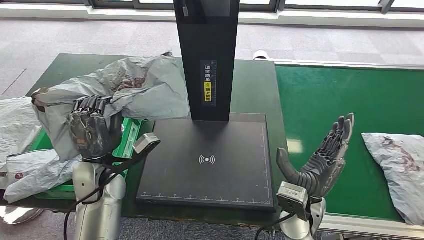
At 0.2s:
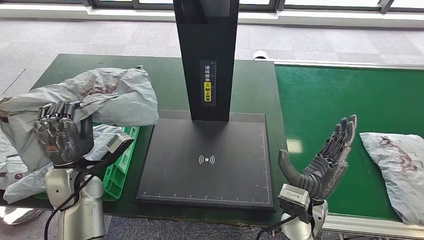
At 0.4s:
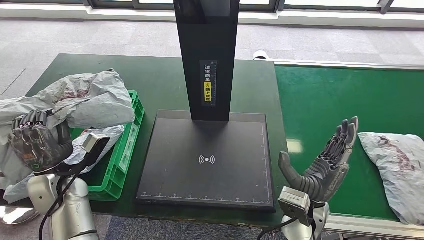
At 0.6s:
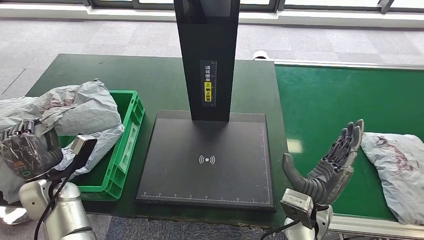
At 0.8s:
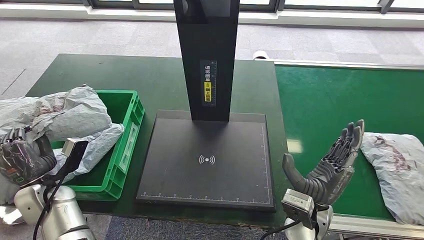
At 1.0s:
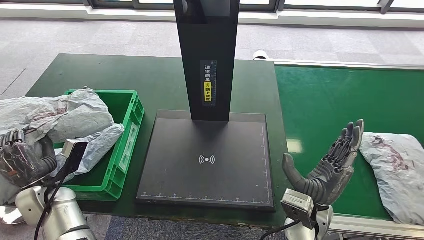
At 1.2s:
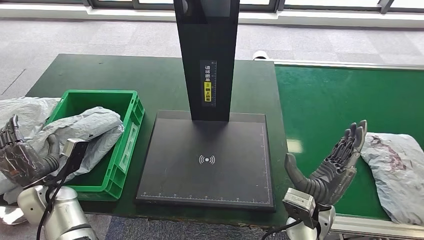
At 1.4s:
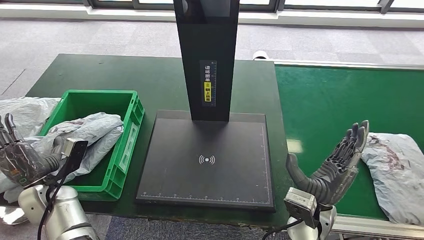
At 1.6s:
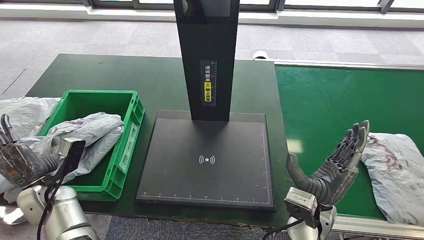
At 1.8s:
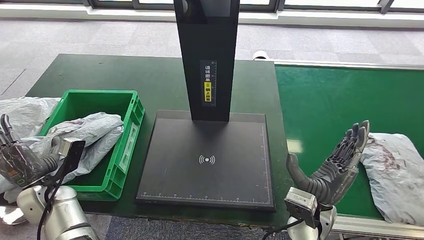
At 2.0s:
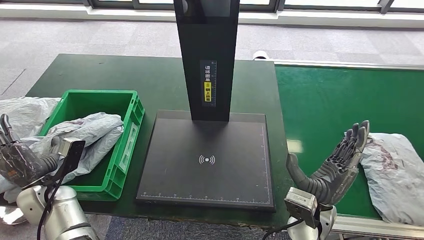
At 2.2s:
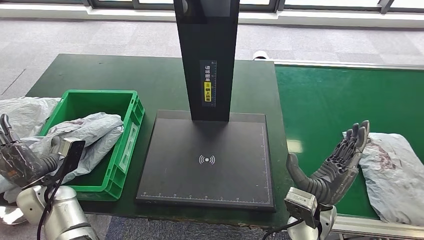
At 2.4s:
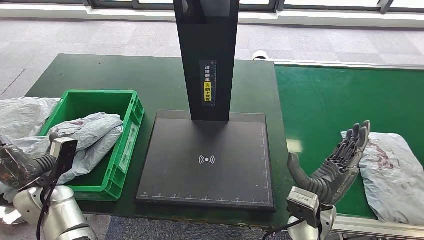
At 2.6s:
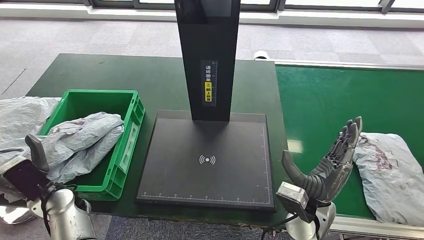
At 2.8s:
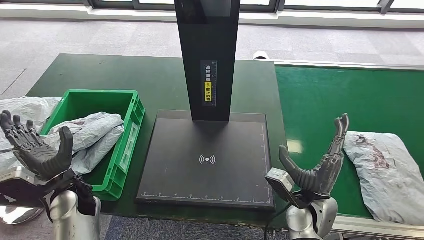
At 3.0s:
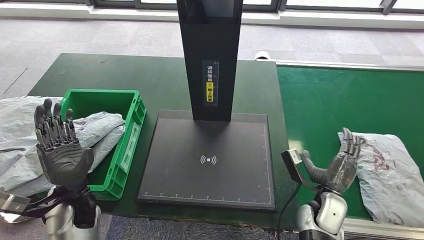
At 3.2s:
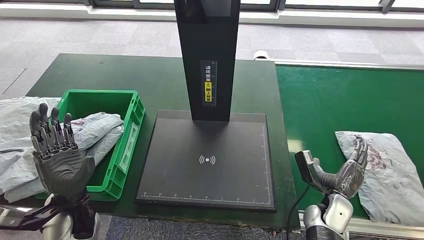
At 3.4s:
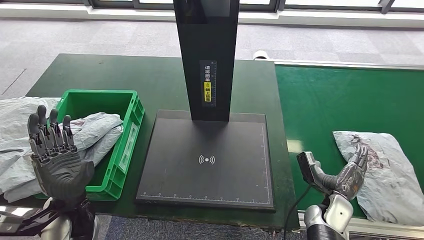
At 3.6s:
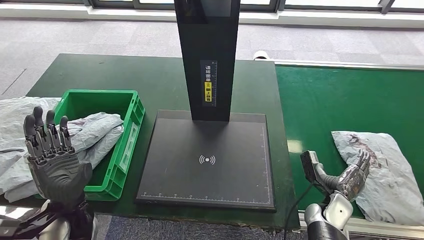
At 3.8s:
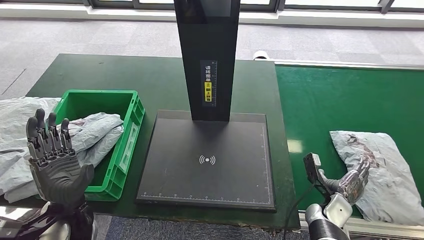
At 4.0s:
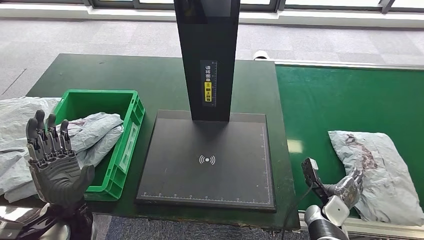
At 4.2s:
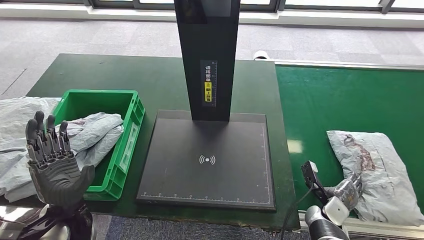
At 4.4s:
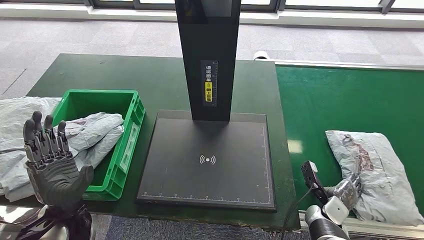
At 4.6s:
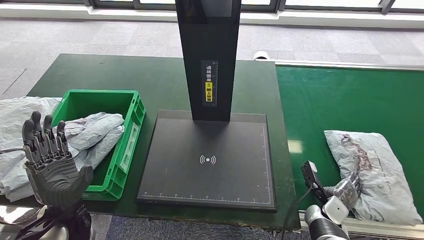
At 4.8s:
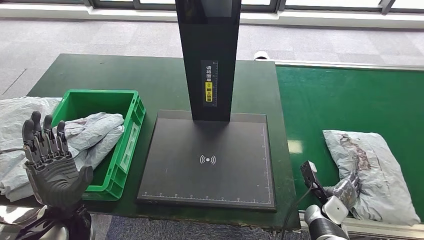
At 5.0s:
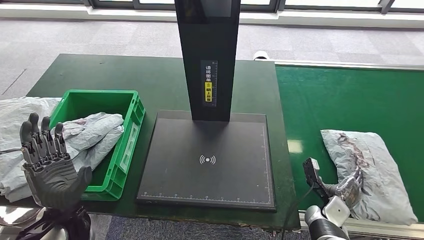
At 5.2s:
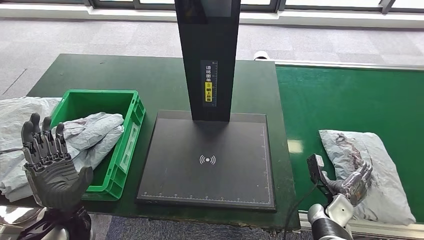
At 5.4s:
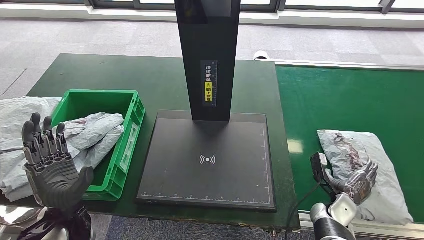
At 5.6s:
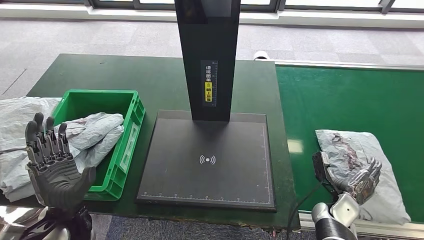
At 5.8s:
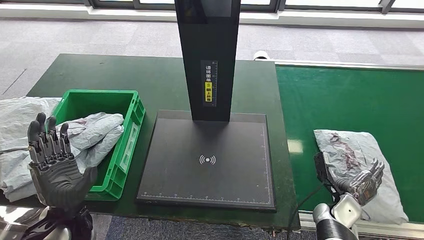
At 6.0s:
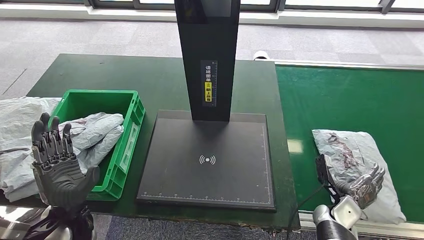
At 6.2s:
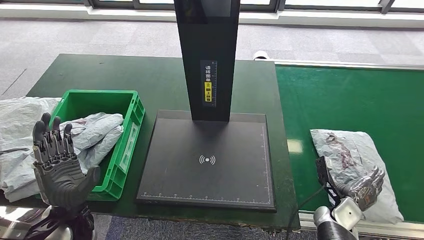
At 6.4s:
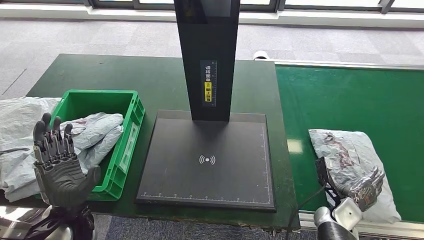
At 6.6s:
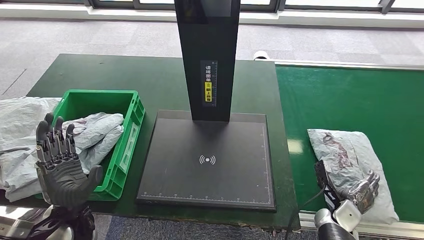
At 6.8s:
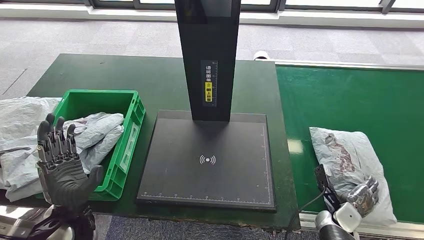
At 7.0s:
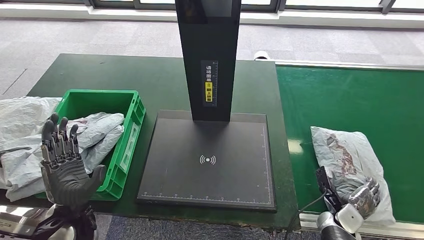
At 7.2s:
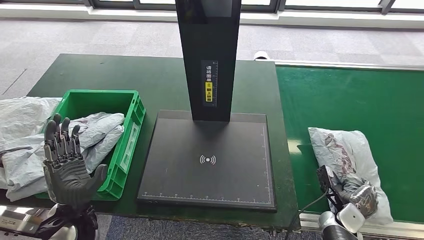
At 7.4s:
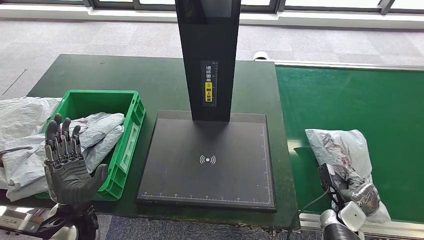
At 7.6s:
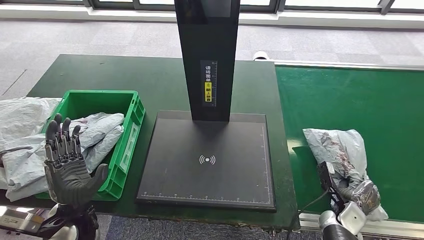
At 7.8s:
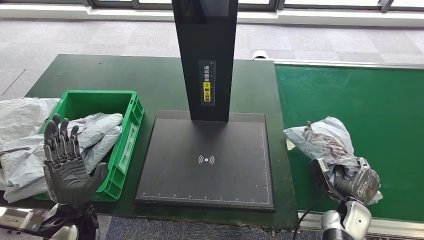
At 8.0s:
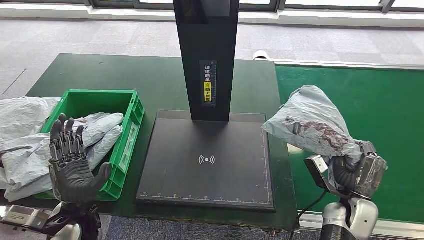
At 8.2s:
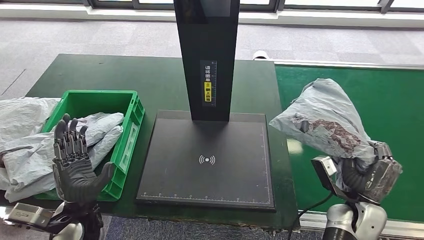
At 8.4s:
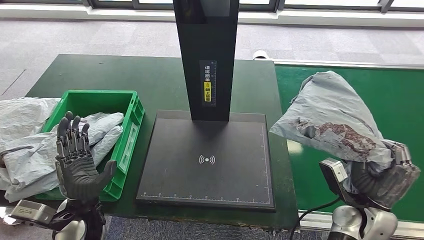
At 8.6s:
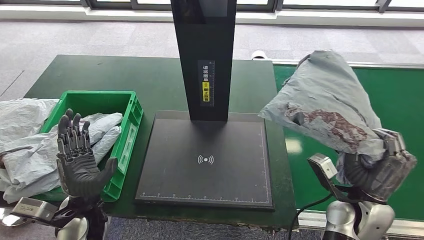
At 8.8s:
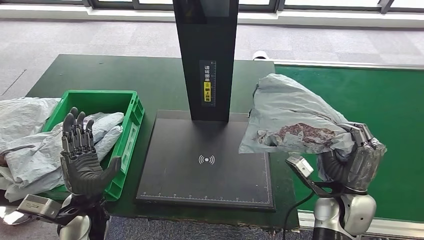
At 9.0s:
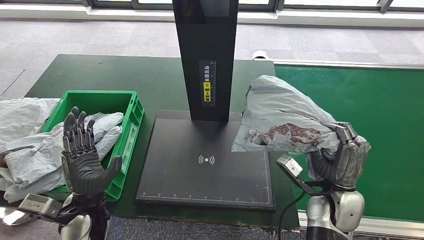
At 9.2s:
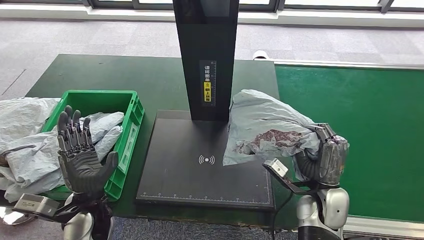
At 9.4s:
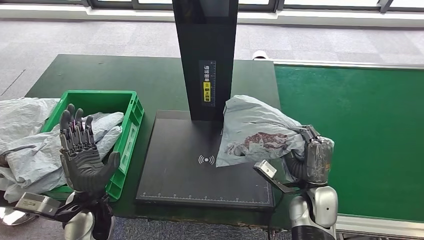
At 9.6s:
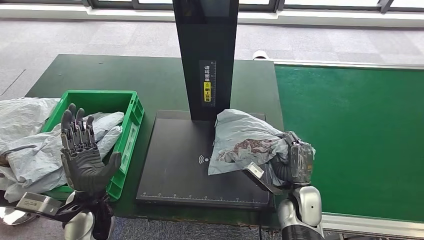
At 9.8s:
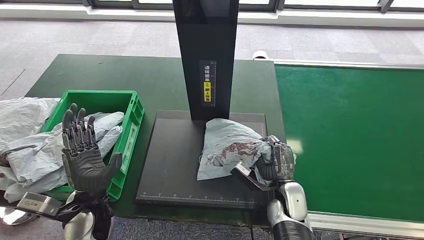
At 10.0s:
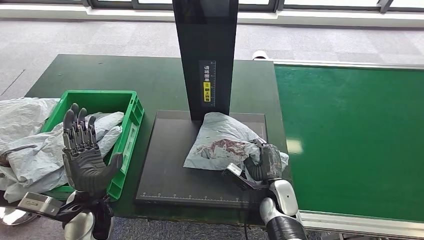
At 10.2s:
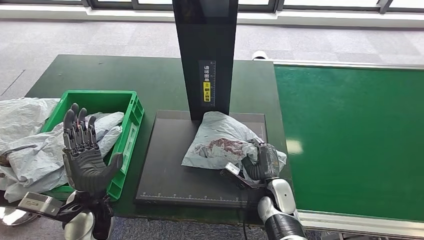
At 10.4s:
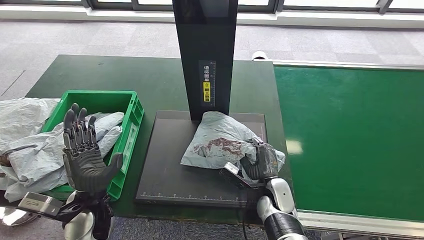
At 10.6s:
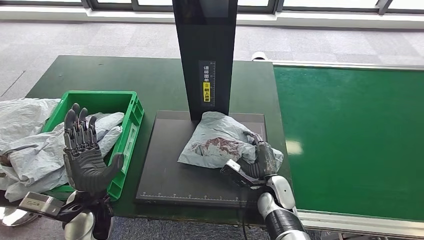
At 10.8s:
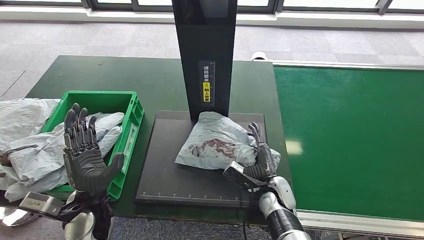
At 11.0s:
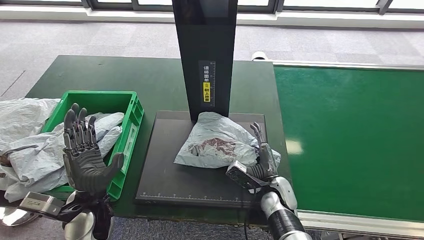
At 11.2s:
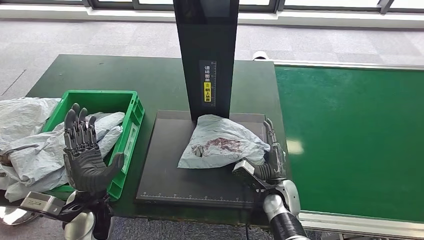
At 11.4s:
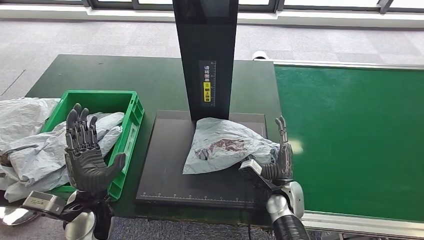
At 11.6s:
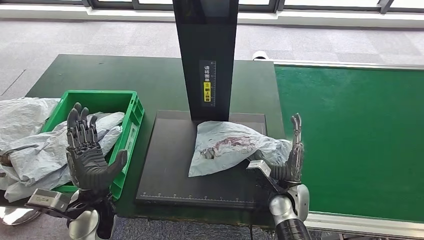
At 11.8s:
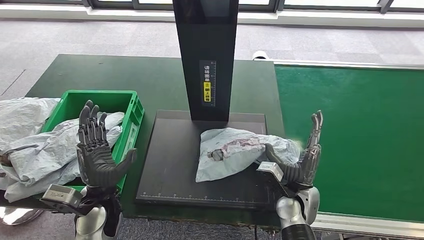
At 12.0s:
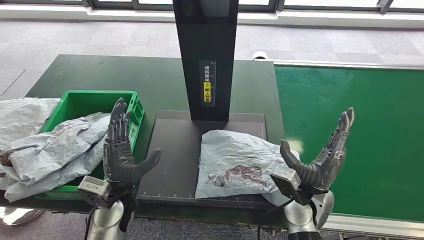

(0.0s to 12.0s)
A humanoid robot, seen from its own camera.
Step, 0.2s - 2.6s: Place the parcel into the delivery box.
Step, 5.4s - 8.6s: Pick up the parcel from the conveyor belt.
3.0s - 4.4s: The right hand is displaced downward and to the right by some 10 cm.
6.0s - 7.6s: The hands move only a little.
10.4s - 12.0s: The right hand goes approximately 10 cm upward and to the right.

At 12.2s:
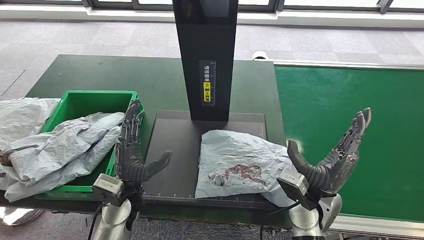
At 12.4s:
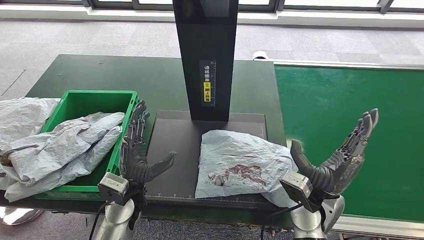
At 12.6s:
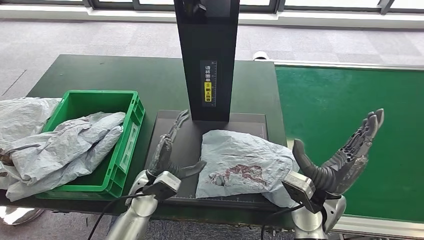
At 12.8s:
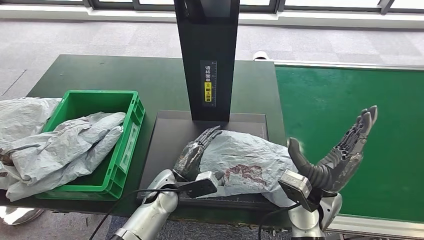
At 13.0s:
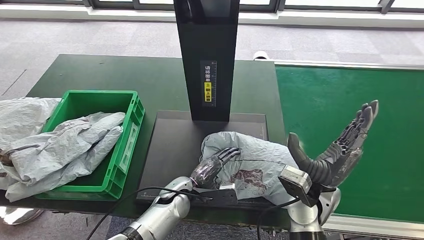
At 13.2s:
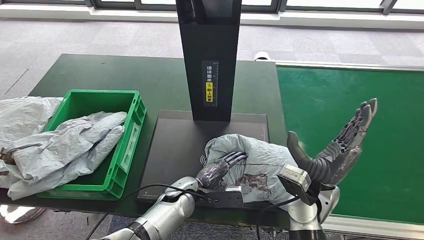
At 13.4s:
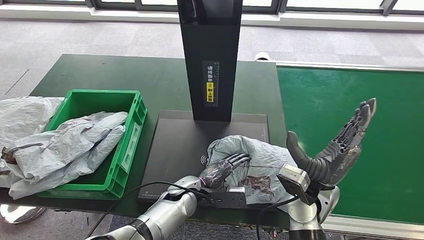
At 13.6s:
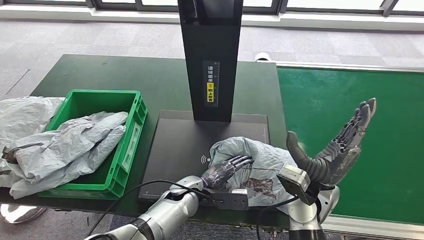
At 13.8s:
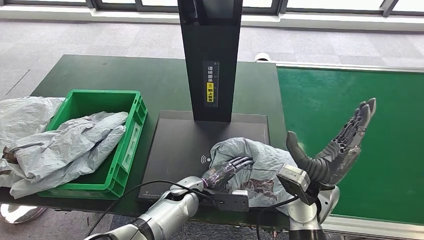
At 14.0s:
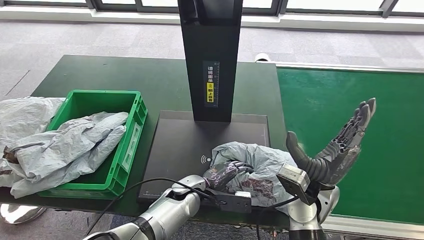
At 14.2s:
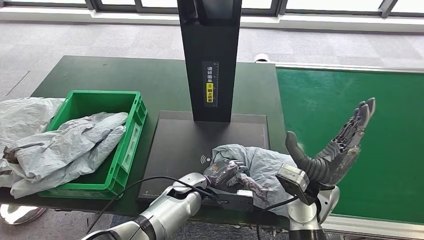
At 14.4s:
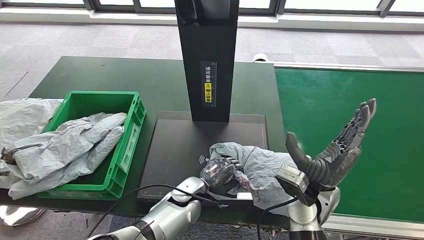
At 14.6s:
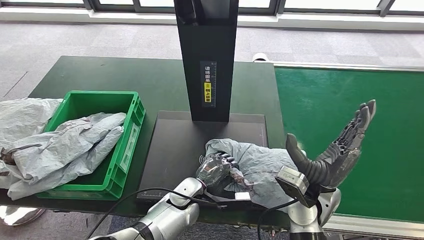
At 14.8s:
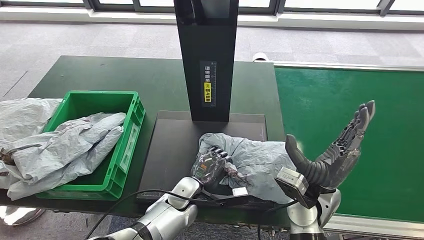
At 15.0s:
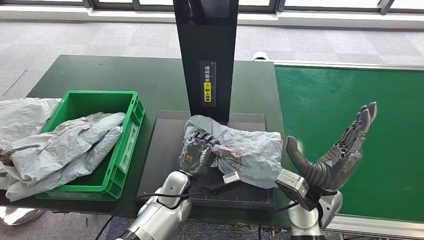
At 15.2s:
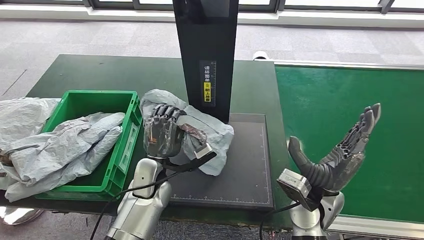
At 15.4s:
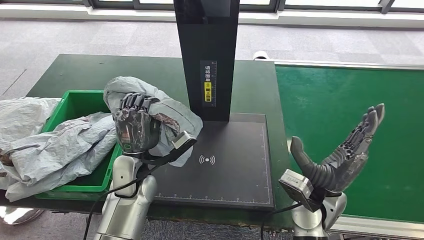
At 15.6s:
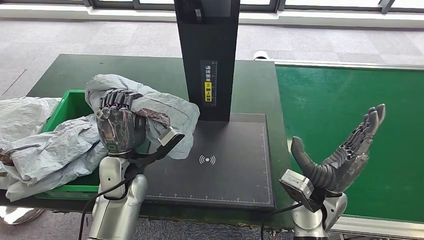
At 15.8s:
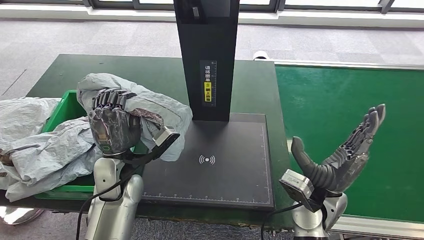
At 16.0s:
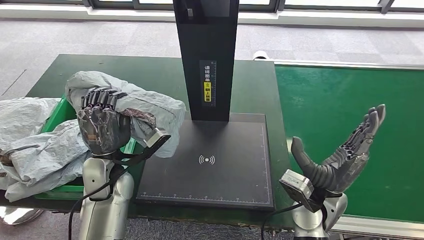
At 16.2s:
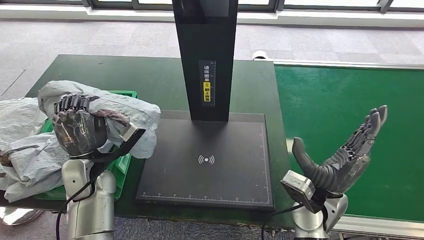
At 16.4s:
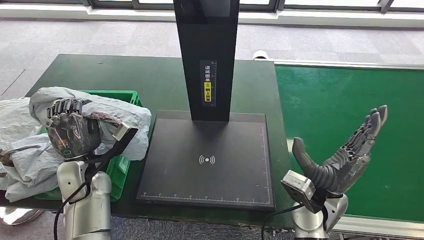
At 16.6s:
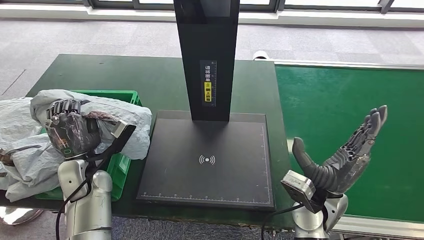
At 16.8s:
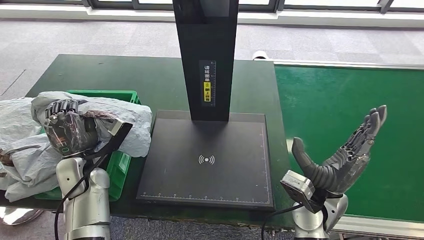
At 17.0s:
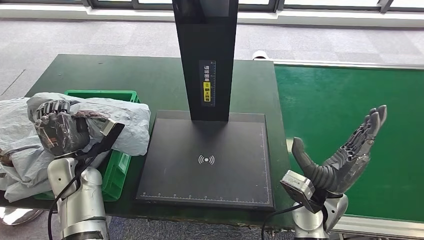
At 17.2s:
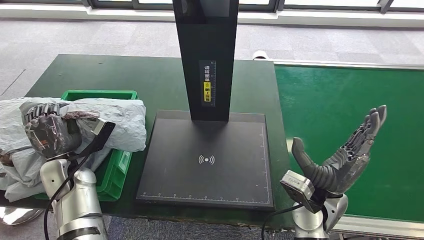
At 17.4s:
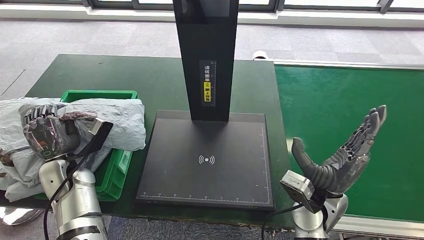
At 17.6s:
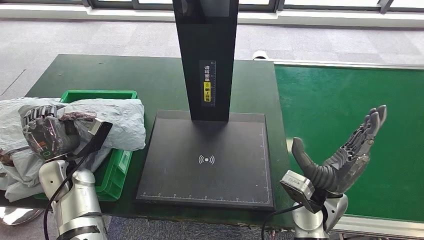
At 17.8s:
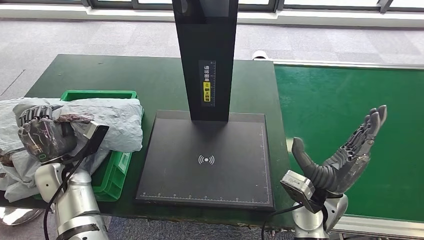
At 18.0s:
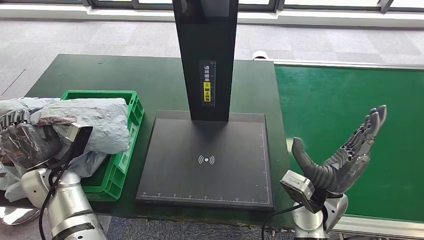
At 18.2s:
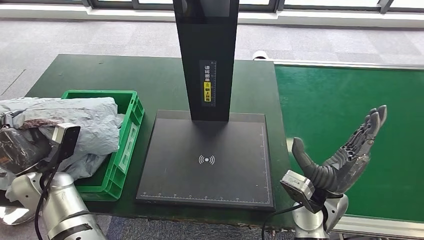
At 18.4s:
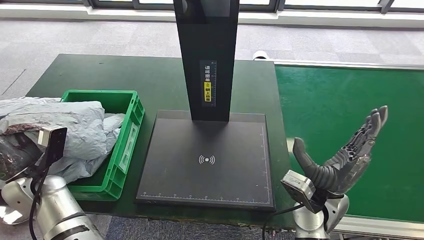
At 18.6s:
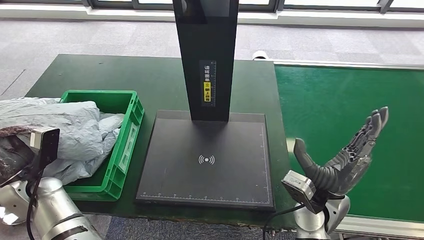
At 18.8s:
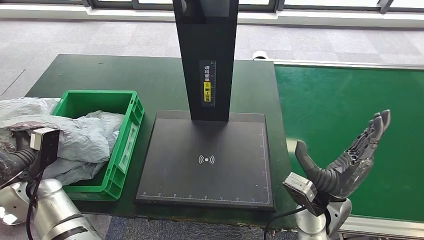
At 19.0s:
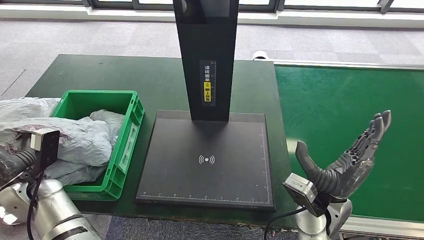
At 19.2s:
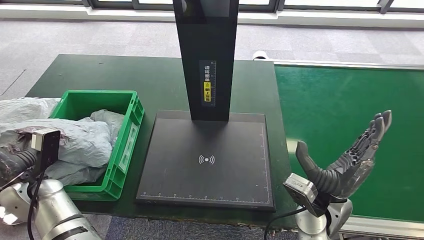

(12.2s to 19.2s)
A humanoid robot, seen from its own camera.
Step, 13.4s - 15.4s: Pick up the parcel from the inbound machine.
16.4s - 17.8s: The left hand goes roughly 5 cm to the left.
17.8s - 19.2s: The left hand moves to the left, some 5 cm.
